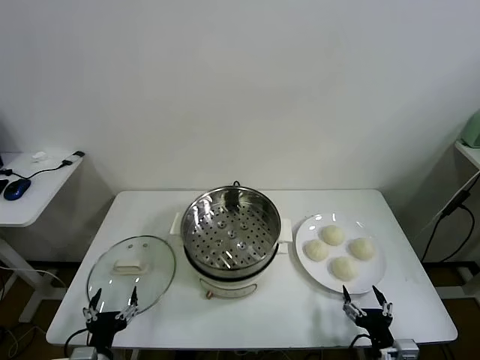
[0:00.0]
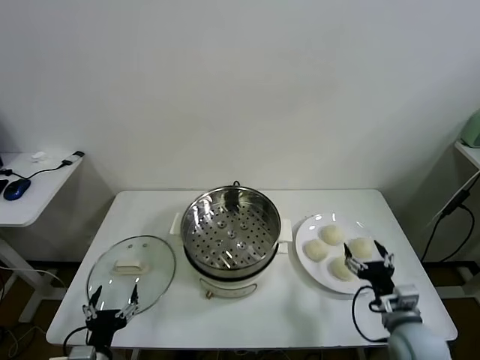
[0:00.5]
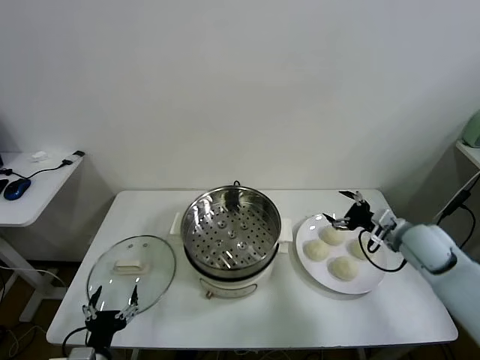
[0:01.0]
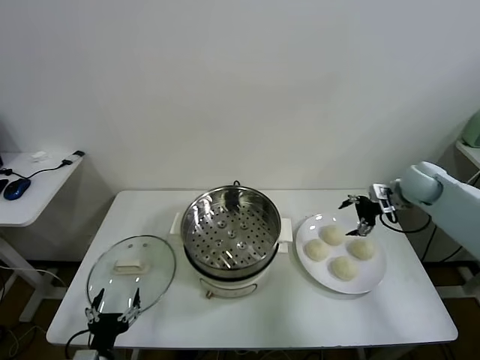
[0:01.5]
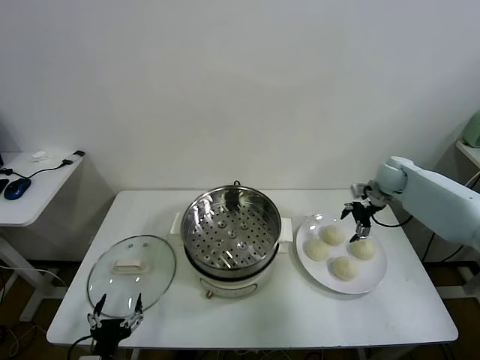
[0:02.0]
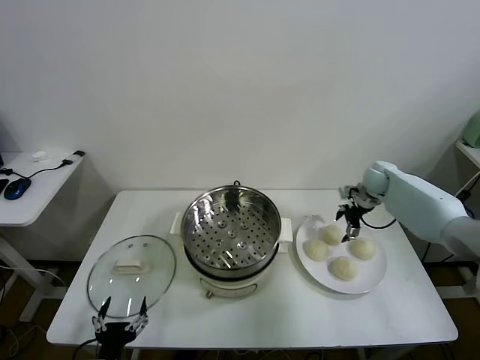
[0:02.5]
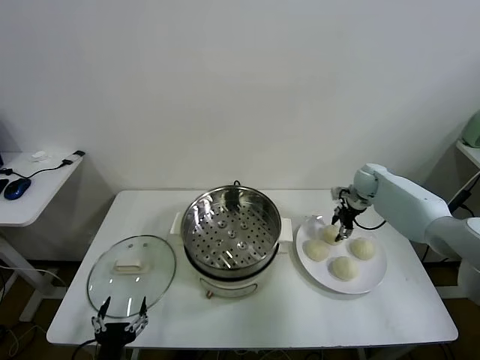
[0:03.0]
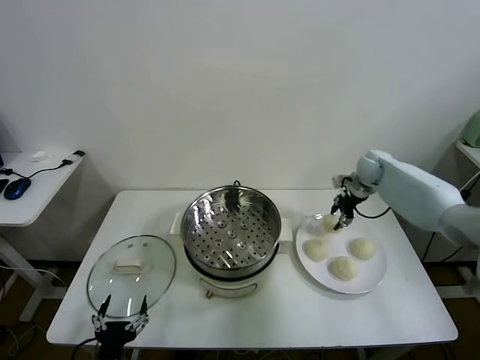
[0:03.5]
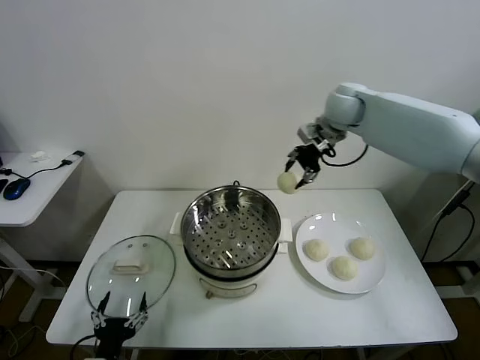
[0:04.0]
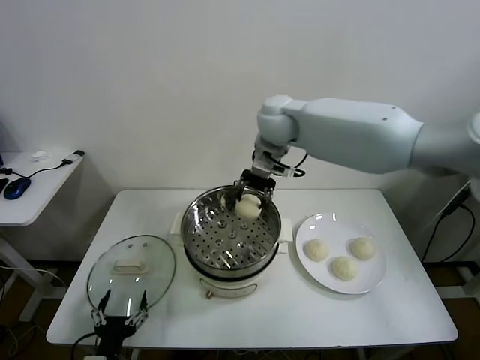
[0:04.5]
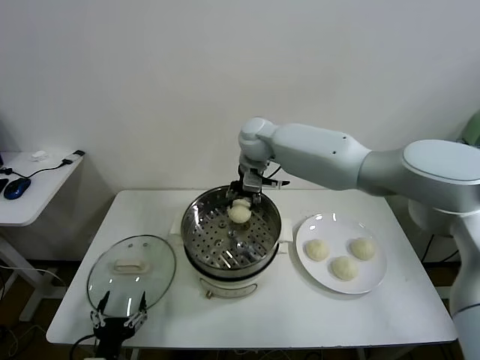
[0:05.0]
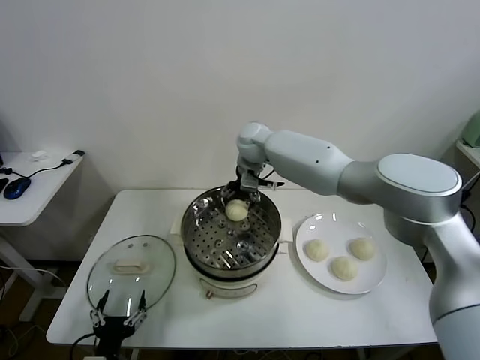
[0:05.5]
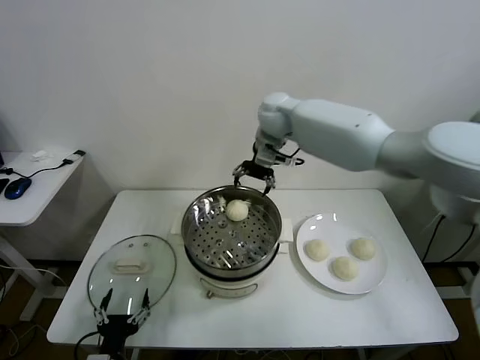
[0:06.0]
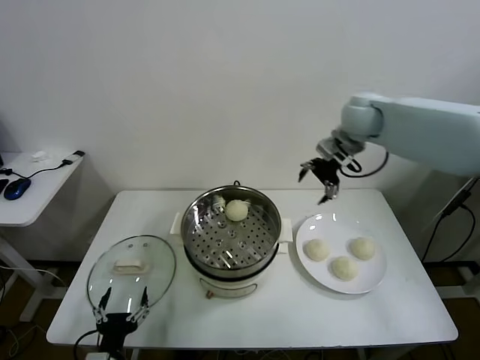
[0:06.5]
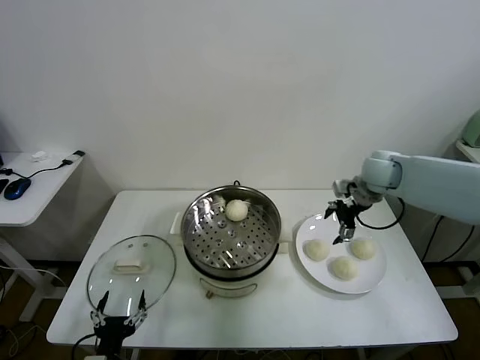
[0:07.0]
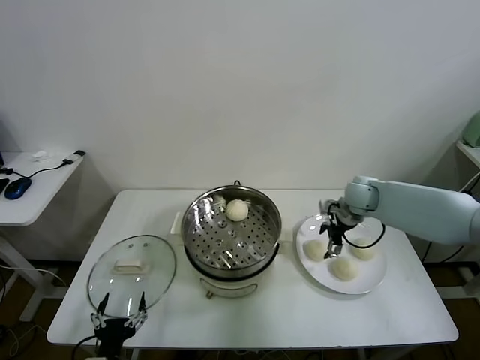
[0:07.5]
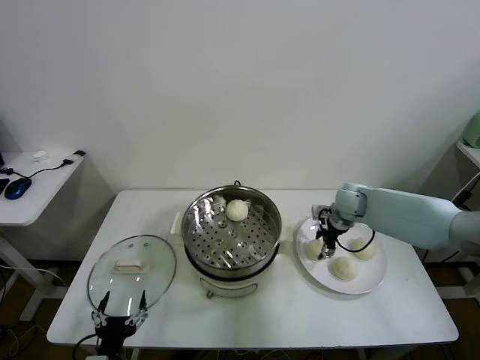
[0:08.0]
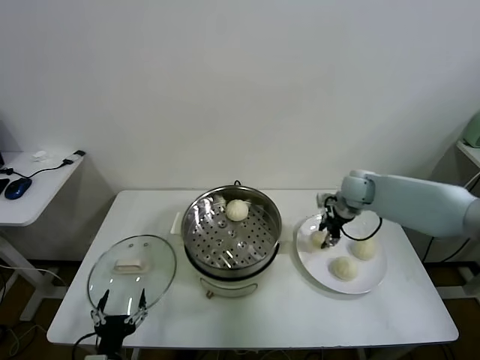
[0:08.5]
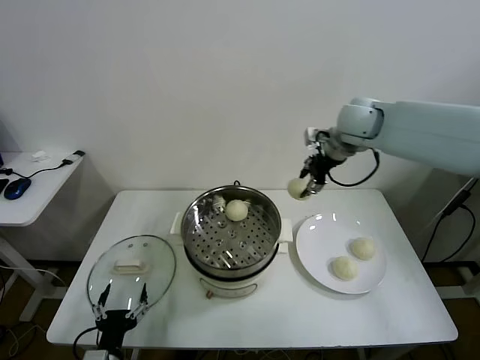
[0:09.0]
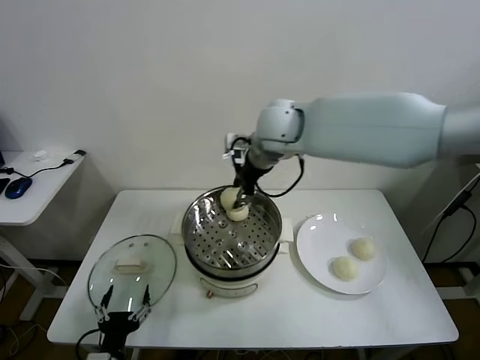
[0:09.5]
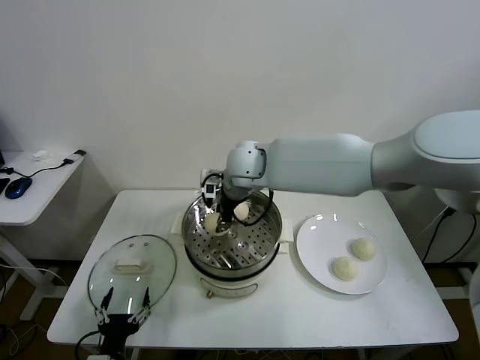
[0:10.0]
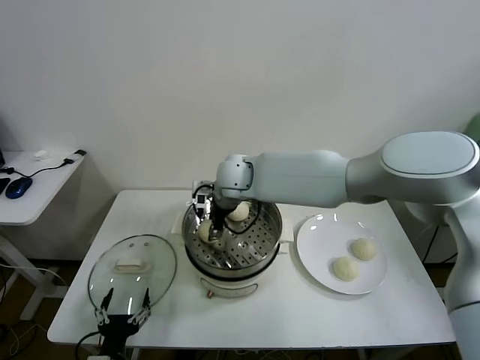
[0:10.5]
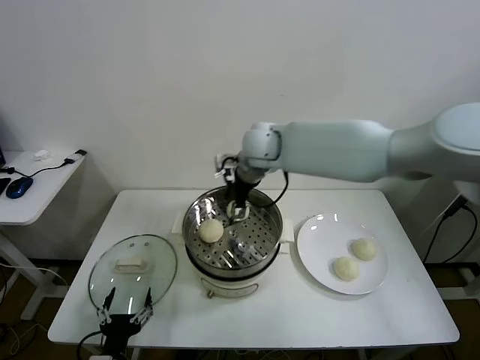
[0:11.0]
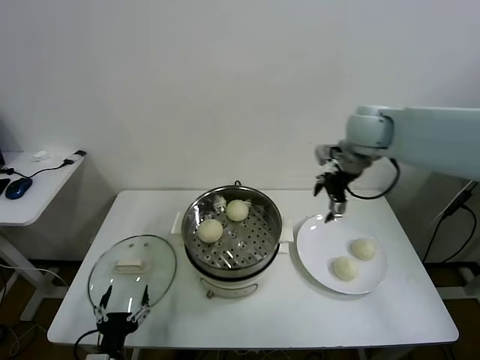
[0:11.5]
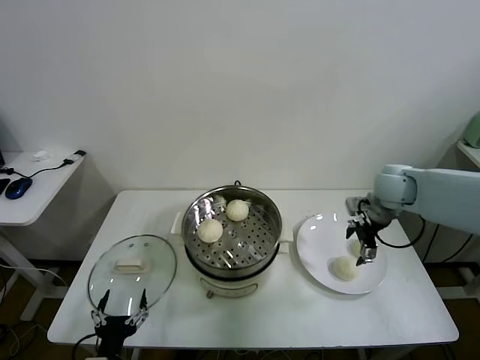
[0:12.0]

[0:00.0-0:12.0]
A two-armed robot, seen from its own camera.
Task of the whole recording: take steamed baozi put them in steamer.
Step, 0:00.0 to 0:02.5: Grasp the baozi in the plate with right gripper.
Step, 0:03.5 to 0:05.5: Place the baozi on the steamer with right gripper.
Step, 0:06.0 to 0:07.5: Grasp the baozi in the plate with right gripper.
Step, 0:08.0 to 0:10.5: Place the baozi on the steamer with right gripper.
0:02.0 to 0:04.0: The right gripper travels to the left and upward by some 30 cm, and closes up.
0:04.0 to 0:06.0: The right gripper goes about 5 cm to the left, and opens.
0:06.0 to 0:08.0: The right gripper travels downward and to the right by about 30 cm, and closes.
0:08.0 to 0:10.0: The right gripper goes about 30 cm to the left and upward.
0:10.0 to 0:12.0: The right gripper goes some 35 cm to the right, and opens its fingers.

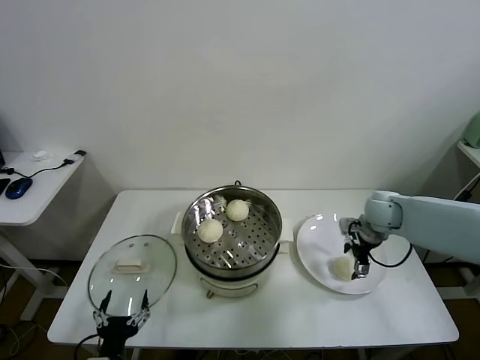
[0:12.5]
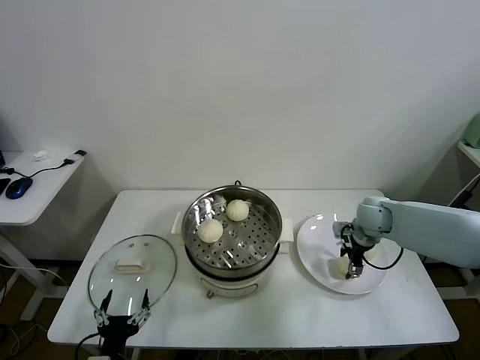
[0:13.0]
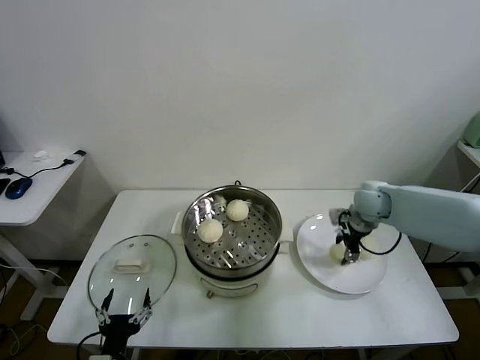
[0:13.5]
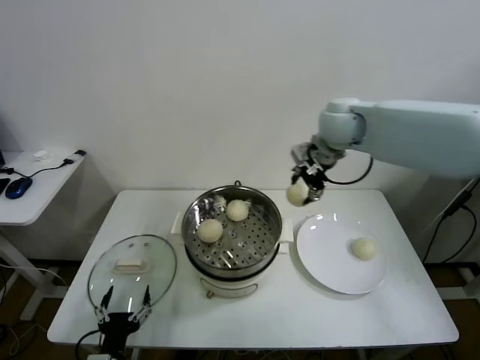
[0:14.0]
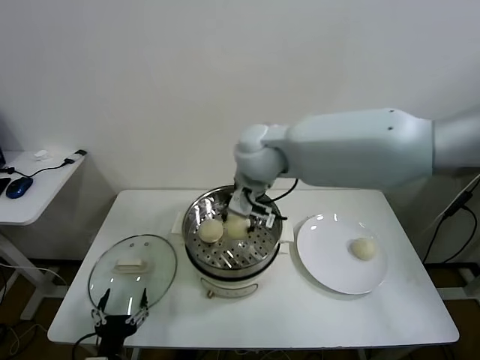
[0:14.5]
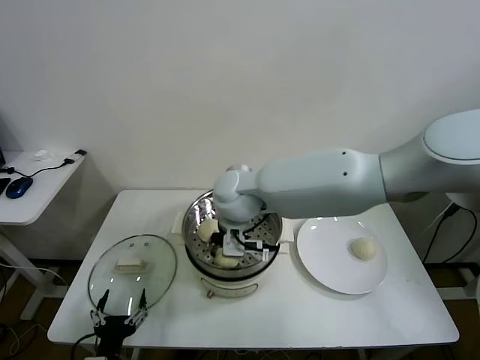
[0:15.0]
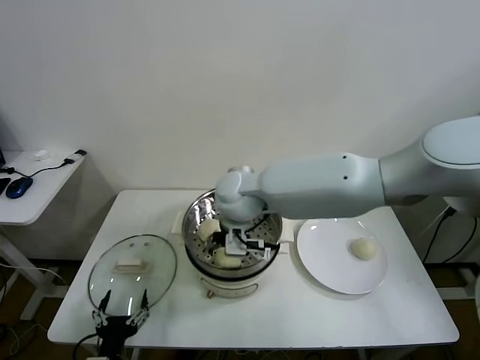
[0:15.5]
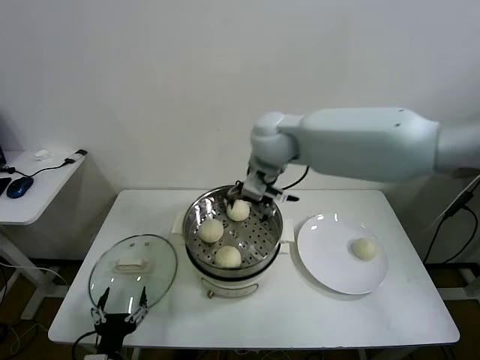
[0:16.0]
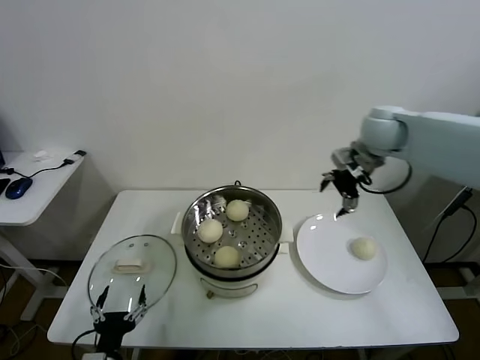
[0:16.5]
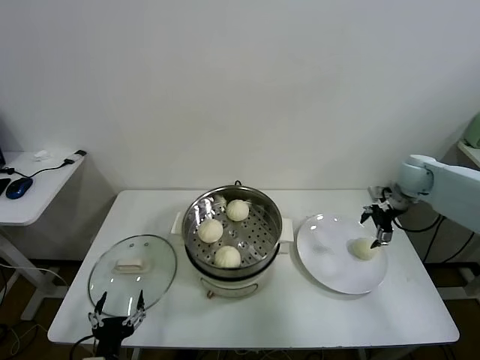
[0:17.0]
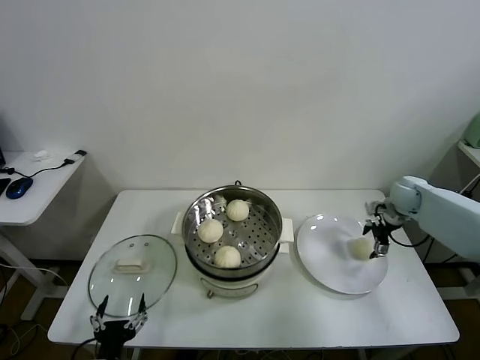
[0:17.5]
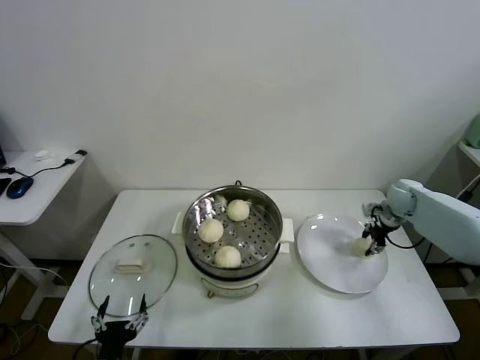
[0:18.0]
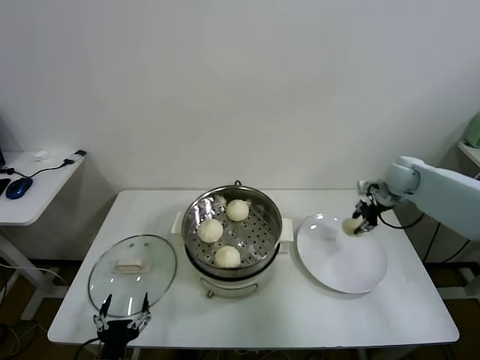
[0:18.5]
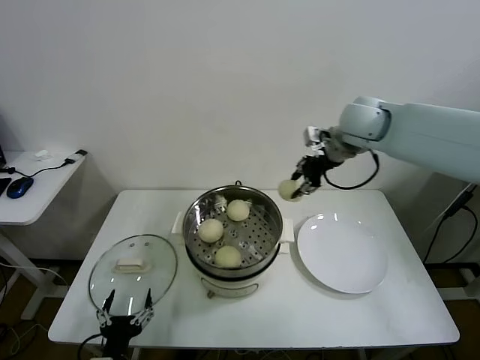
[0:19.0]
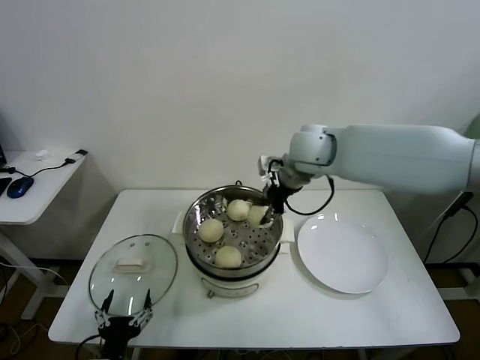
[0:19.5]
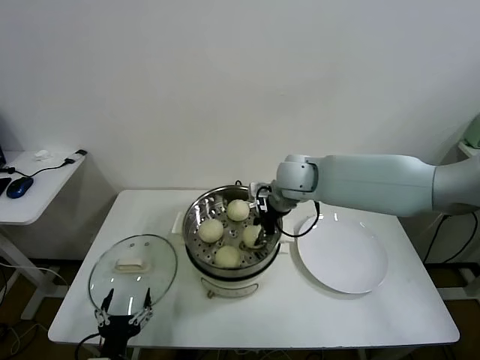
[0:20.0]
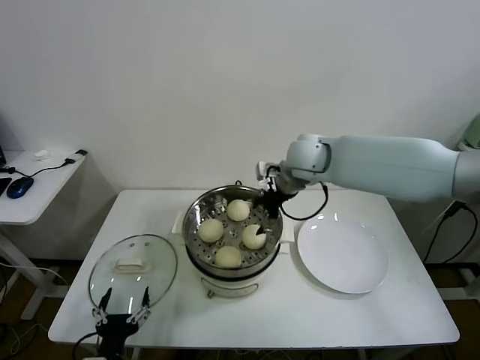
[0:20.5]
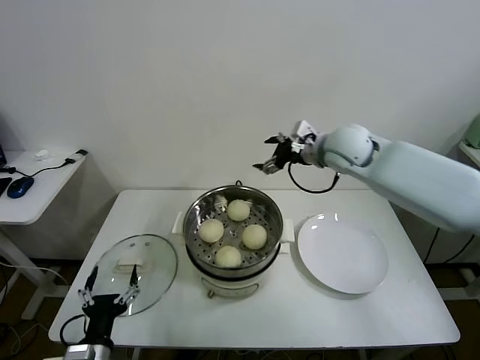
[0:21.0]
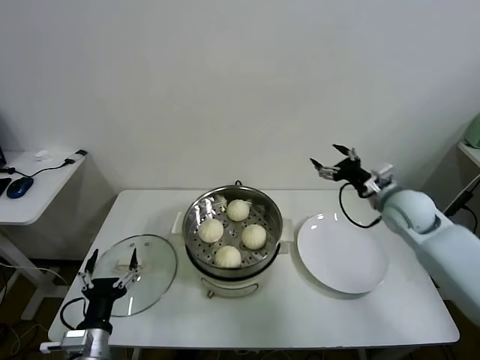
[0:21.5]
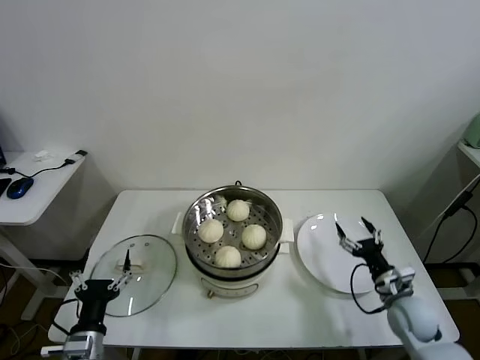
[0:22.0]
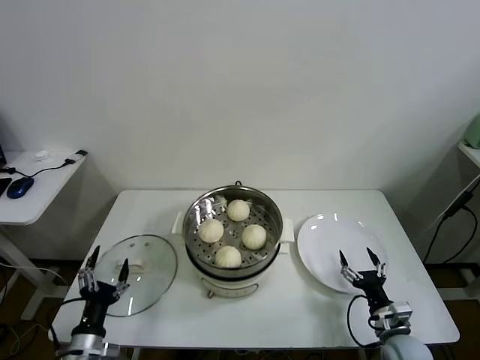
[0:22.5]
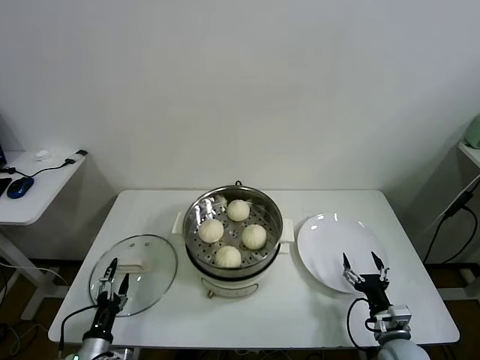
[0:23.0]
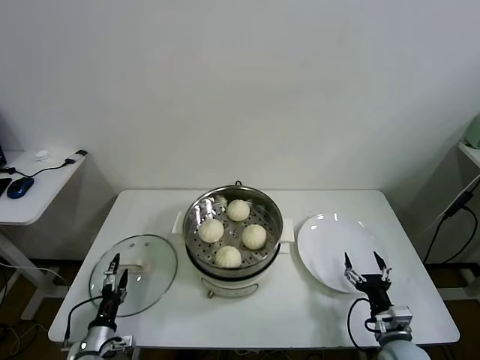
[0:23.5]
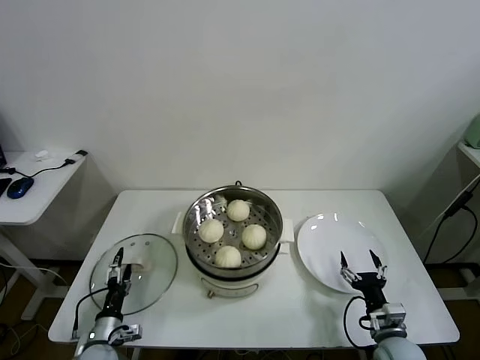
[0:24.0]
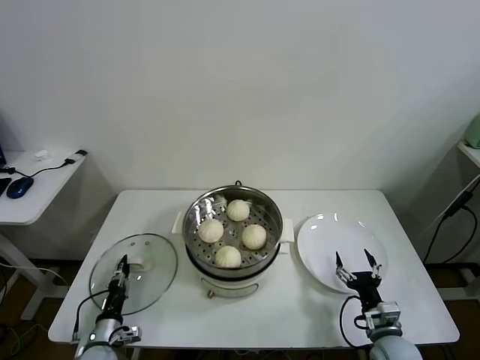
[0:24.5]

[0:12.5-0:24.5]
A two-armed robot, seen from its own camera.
Task of the whole recording: take steamed baozi put them in steamer.
Step, 0:13.5 to 0:15.0: Place the baozi on the steamer with right gripper.
Step, 0:15.5 to 0:17.5: Grasp the baozi in the plate with right gripper.
Step, 0:18.0 to 0:20.0: Place the baozi on the steamer with right gripper.
0:12.5 to 0:14.5: The right gripper moves to the left and upward, some 40 cm, and closes.
0:14.5 to 0:16.5: The right gripper travels to the right by some 30 cm, and opens its fingers.
0:16.5 to 0:18.5: The right gripper goes approximately 15 cm downward and to the right, and closes its fingers.
0:18.5 to 0:20.5: The right gripper heads to the left, covering approximately 25 cm, and opens its fingers.
0:20.5 to 0:22.5: The left gripper heads to the left and forward, covering about 10 cm. Meanwhile the right gripper moves downward, backward and to the right, some 50 cm.
0:22.5 to 0:24.5: The left gripper is displaced downward and forward by roughly 15 cm, and closes its fingers.

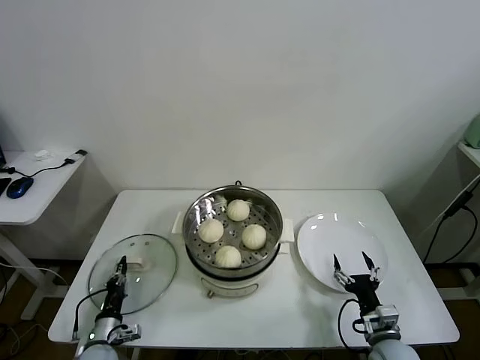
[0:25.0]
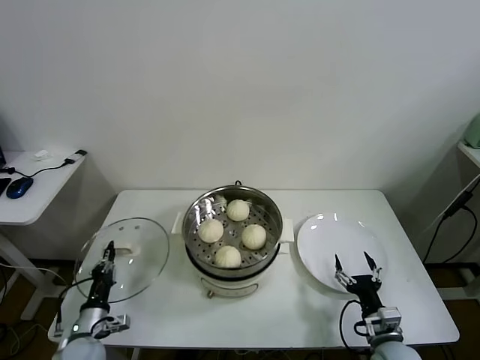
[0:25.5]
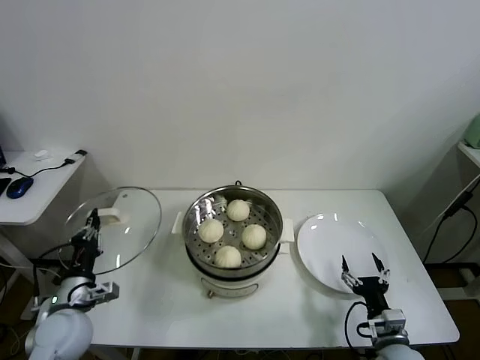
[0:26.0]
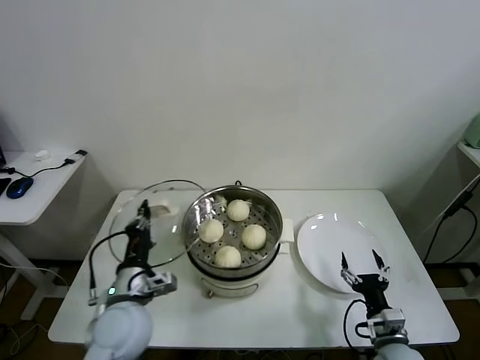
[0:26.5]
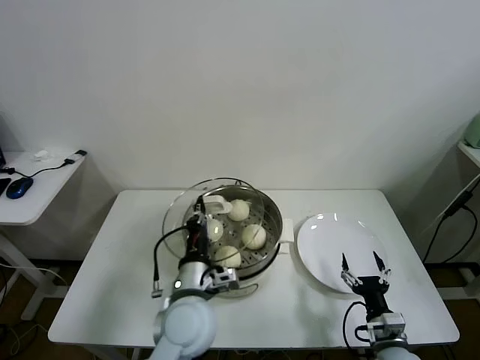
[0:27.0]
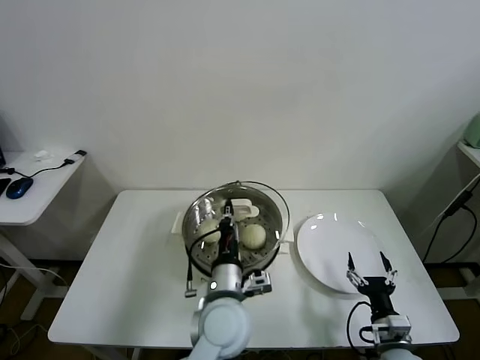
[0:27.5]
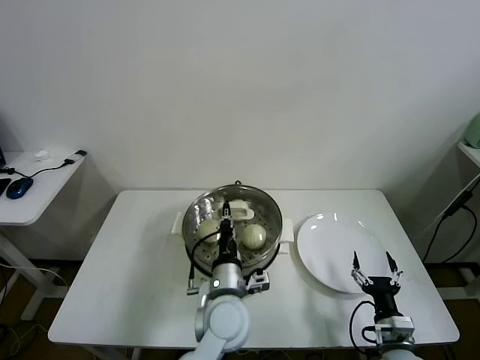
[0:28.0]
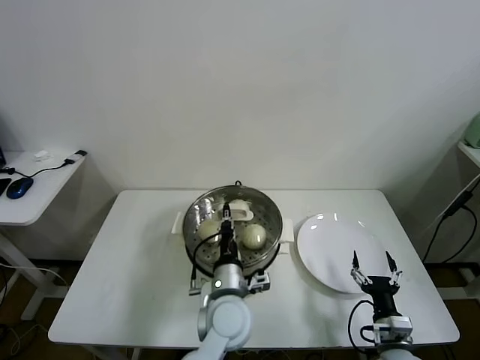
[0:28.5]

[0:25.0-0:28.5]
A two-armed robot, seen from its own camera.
Task of the whole recording: take steamed baozi put them in steamer.
0:25.0 to 0:27.0: The left gripper shifts approximately 35 cm to the right and upward.
0:27.0 to 0:28.5: The left gripper is displaced to the right by roughly 10 cm.
